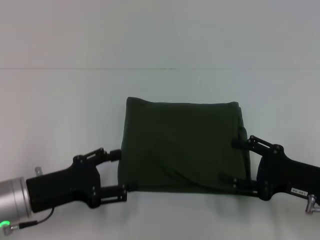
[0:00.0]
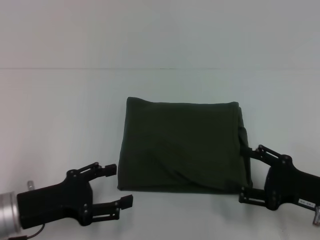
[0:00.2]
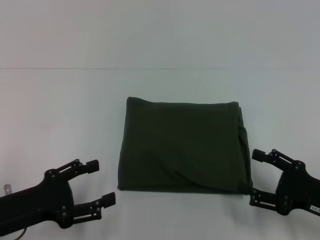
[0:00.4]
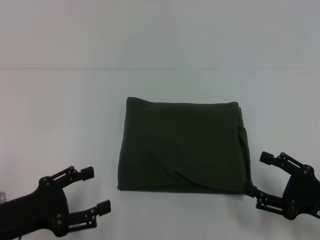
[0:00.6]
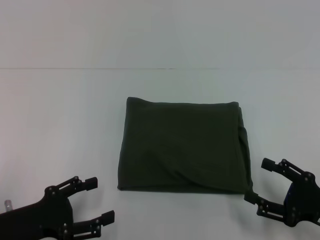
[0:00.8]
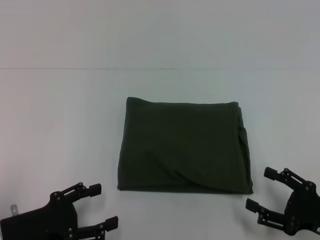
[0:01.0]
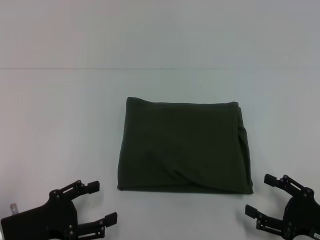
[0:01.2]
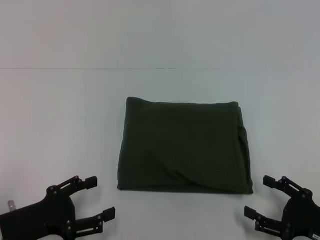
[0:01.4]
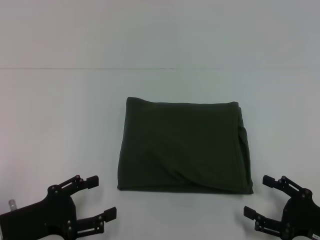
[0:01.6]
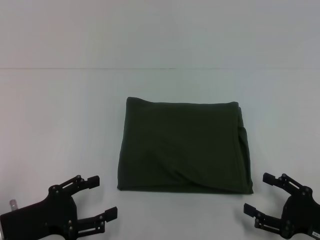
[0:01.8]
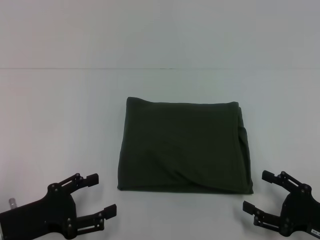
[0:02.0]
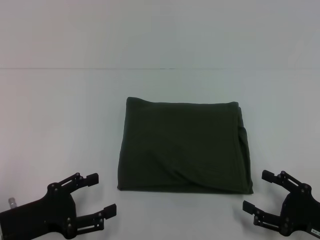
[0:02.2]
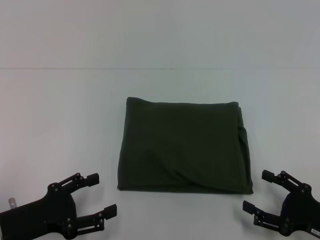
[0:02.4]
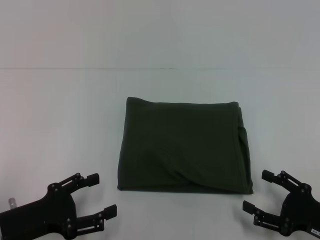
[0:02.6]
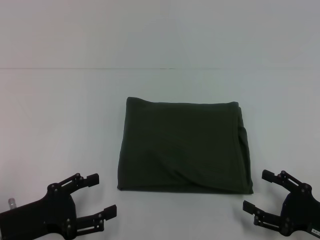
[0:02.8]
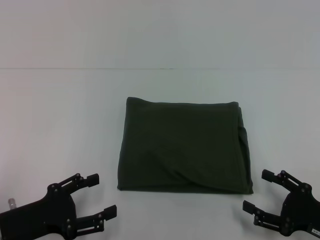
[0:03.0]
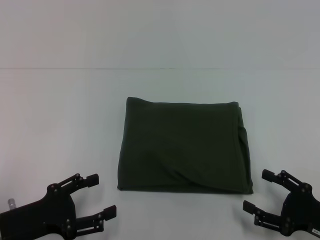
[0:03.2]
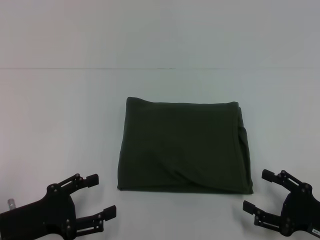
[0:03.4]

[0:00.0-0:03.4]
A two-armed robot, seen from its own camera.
0:00.0 to 0:01.6: The left gripper moves roughly 5 cm. The right gripper travels backward by roughly 5 cm.
0:01.6 to 0:03.4: The two grippers keep their place.
